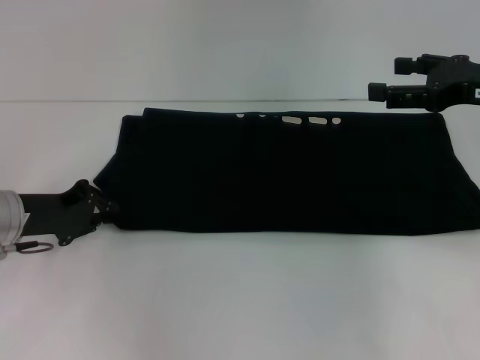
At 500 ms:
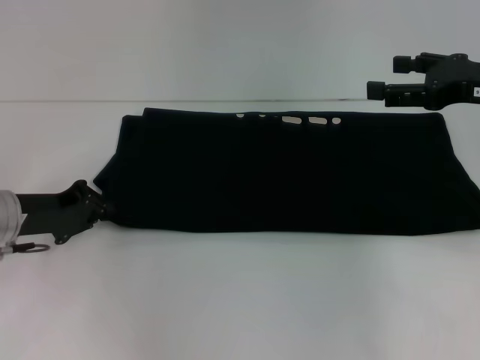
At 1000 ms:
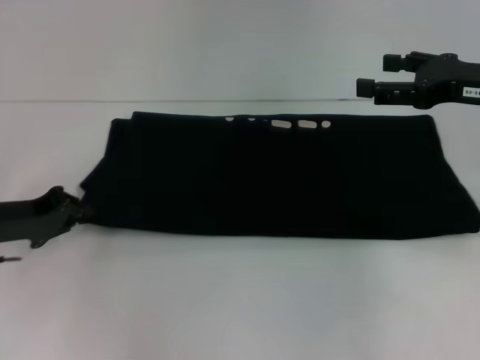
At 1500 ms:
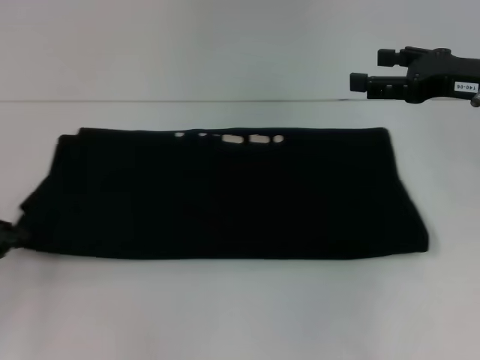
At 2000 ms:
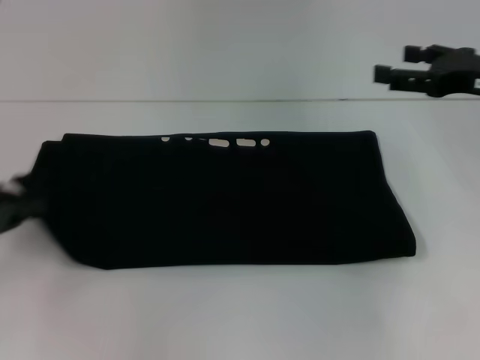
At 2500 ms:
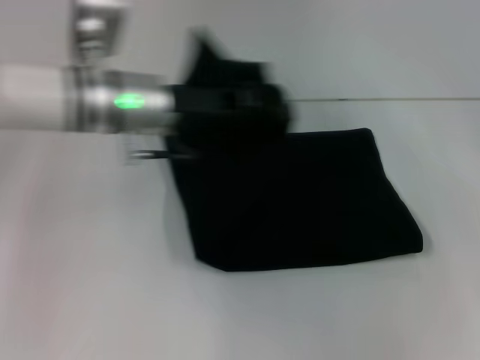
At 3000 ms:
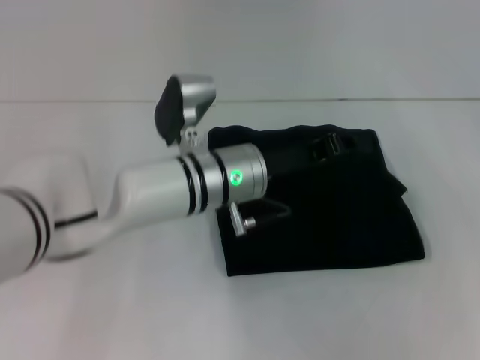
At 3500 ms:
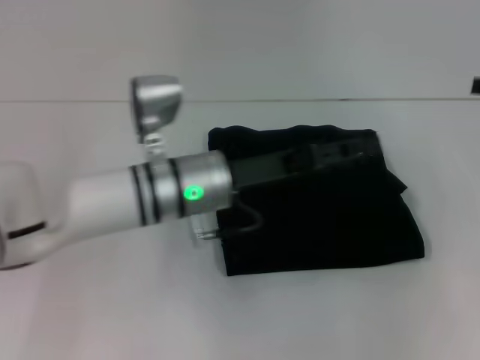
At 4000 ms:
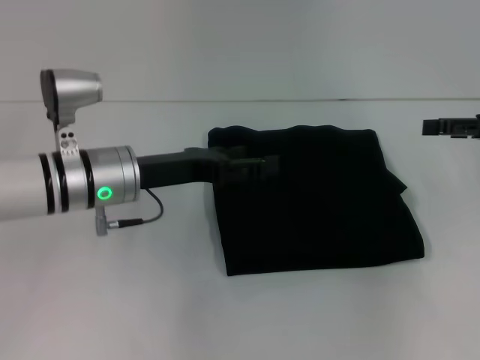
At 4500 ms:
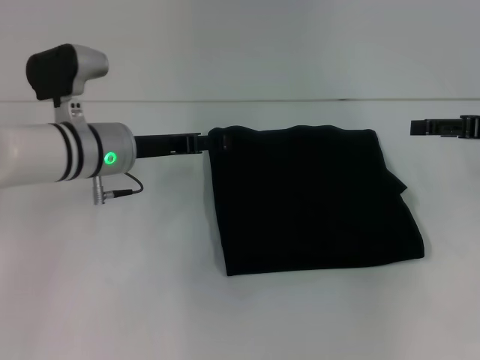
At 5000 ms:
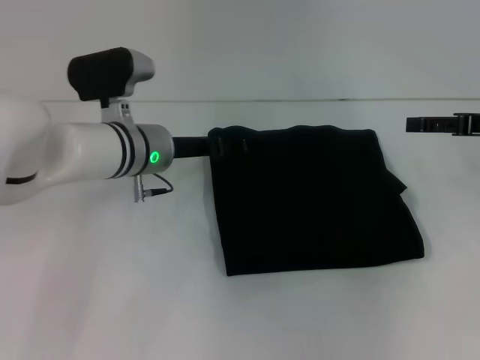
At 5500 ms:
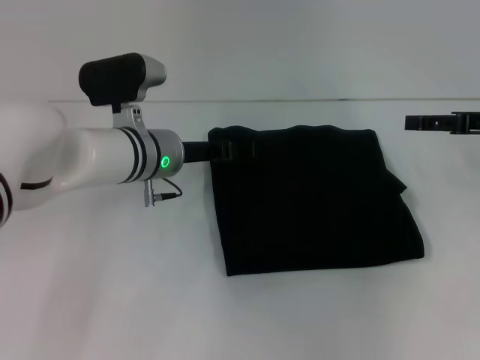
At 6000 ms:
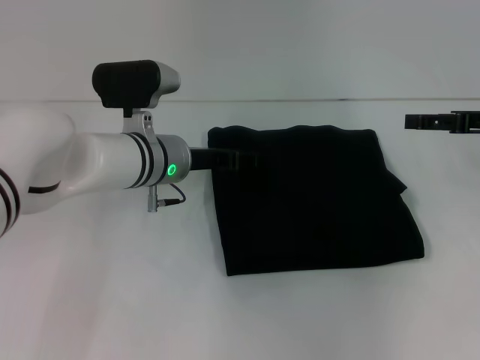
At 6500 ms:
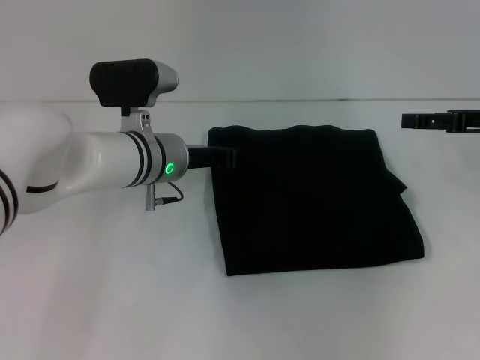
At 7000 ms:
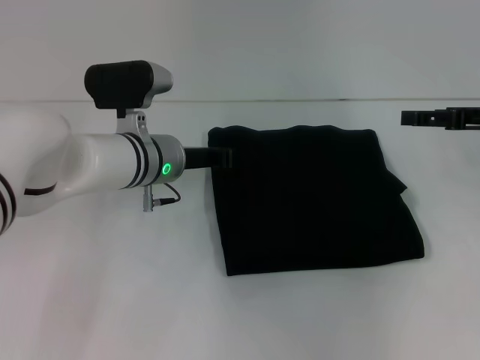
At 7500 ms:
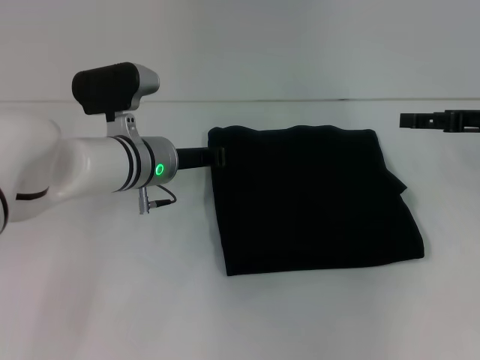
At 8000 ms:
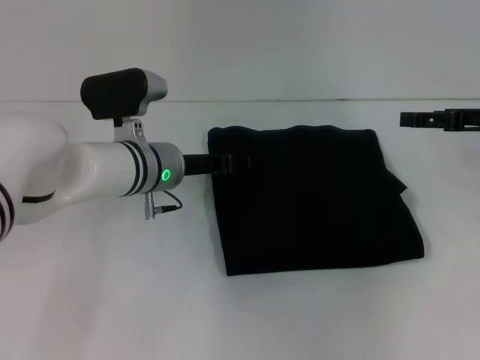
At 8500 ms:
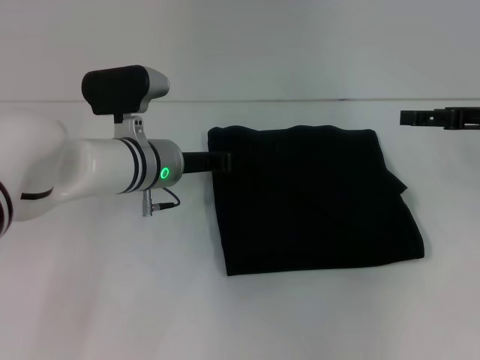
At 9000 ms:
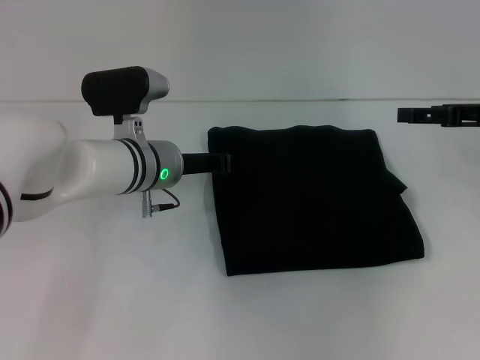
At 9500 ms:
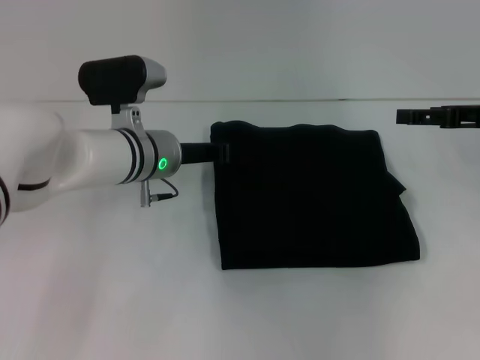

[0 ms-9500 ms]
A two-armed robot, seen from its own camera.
Step, 0 ms to 3500 ms: Fold the clothes with your left hand.
0 ms to 2000 ms: The left gripper travels to the left and backward by about 10 cm.
2000 ms to 4000 ms: The left gripper shifts approximately 20 cm to the right, and opens its fingers.
4000 ms to 5500 ms: The left gripper shifts about 5 cm forward.
5500 ms to 7500 ms: The left gripper closes up.
7500 ms to 9500 ms: The left gripper opens, then closes again.

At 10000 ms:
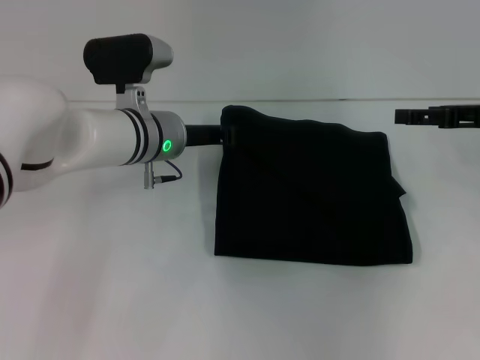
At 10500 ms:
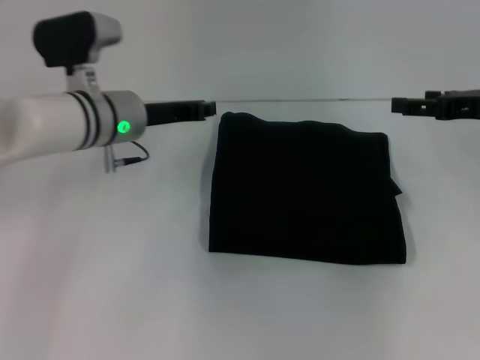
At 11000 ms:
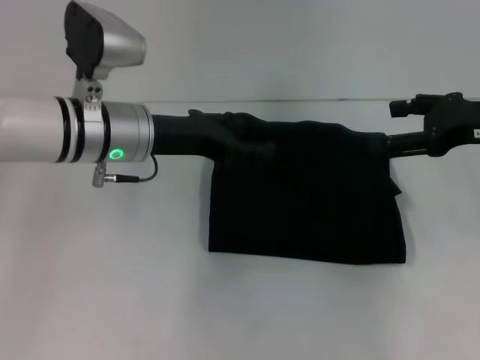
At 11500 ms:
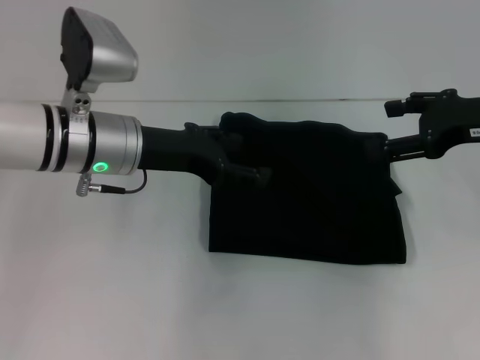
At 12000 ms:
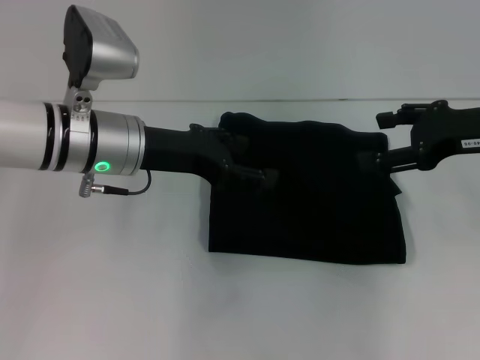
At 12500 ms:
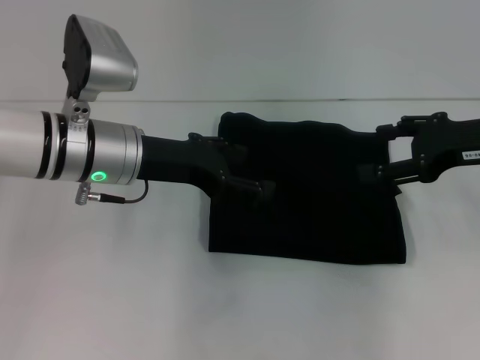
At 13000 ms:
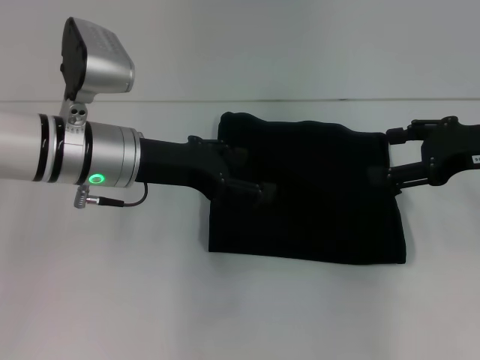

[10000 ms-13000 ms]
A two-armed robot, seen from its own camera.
10000 ms to 11500 ms: The left gripper shifts approximately 5 cm backward and upward, and opens.
11500 ms to 13000 ms: The grippers move only a little.
